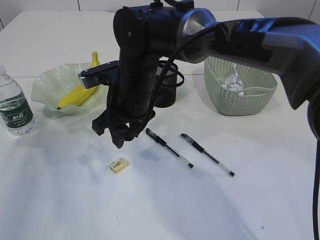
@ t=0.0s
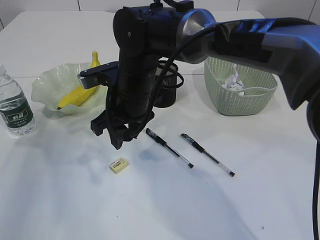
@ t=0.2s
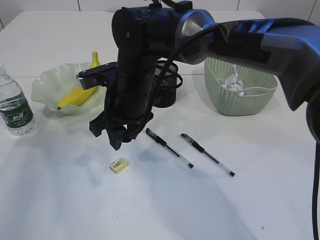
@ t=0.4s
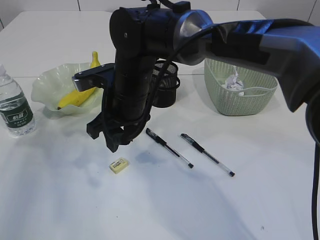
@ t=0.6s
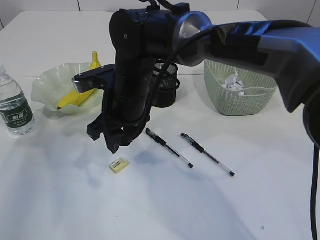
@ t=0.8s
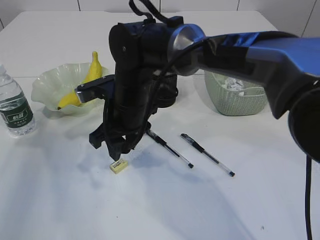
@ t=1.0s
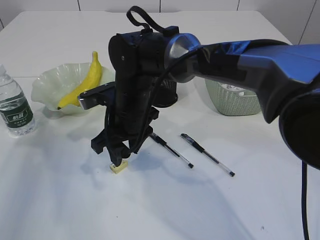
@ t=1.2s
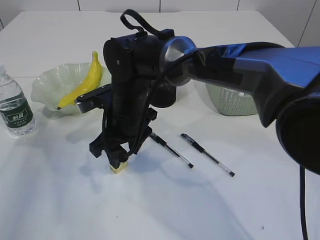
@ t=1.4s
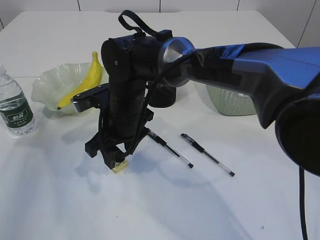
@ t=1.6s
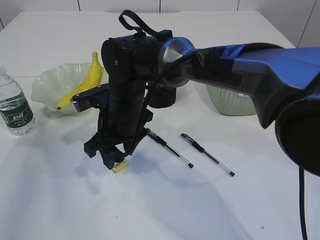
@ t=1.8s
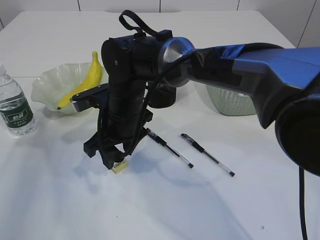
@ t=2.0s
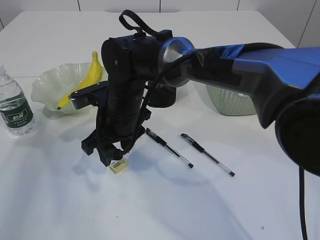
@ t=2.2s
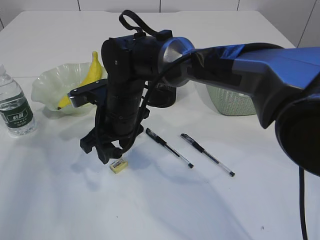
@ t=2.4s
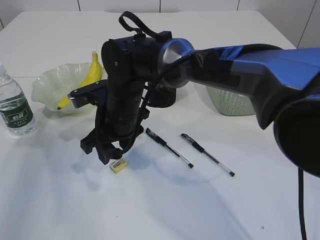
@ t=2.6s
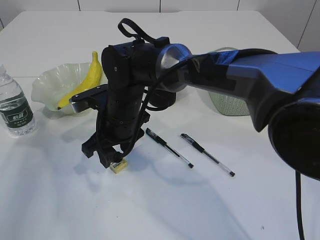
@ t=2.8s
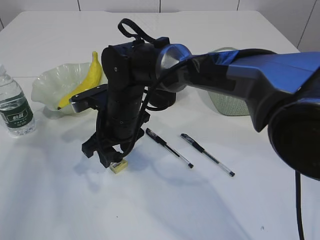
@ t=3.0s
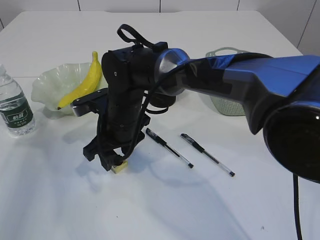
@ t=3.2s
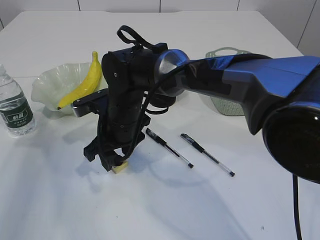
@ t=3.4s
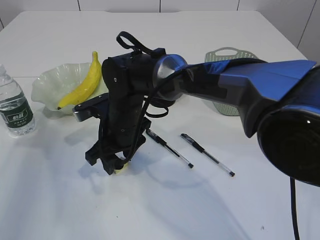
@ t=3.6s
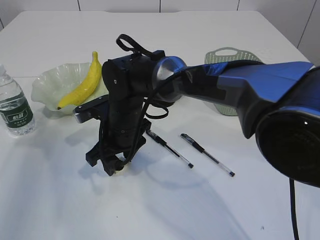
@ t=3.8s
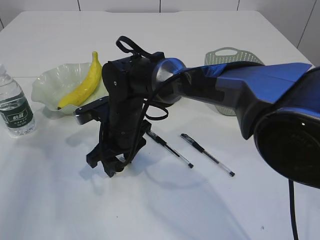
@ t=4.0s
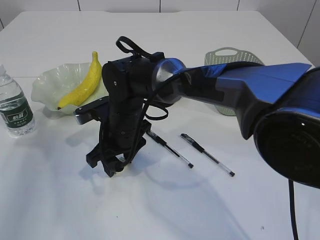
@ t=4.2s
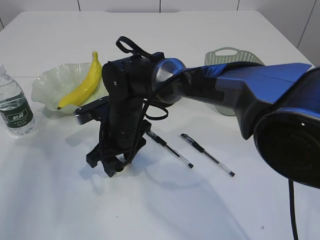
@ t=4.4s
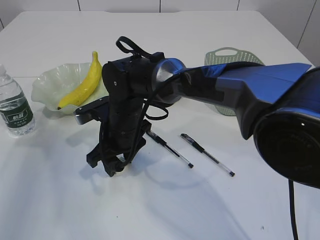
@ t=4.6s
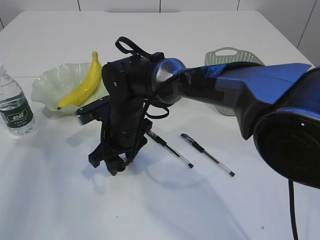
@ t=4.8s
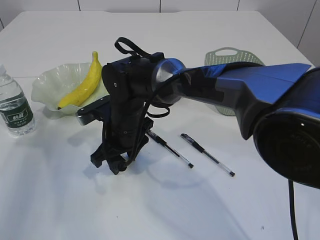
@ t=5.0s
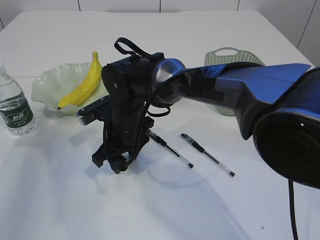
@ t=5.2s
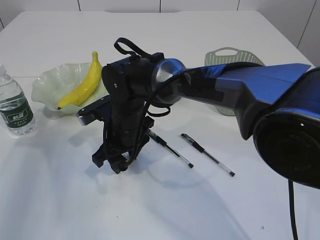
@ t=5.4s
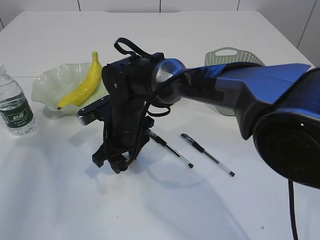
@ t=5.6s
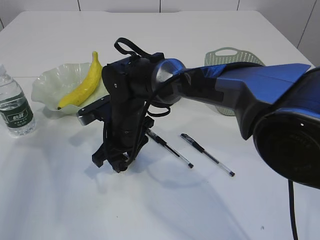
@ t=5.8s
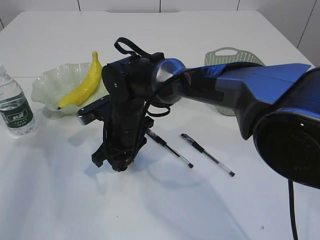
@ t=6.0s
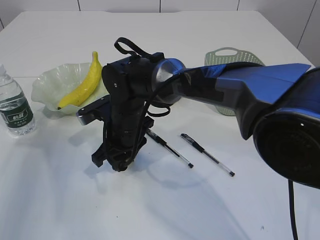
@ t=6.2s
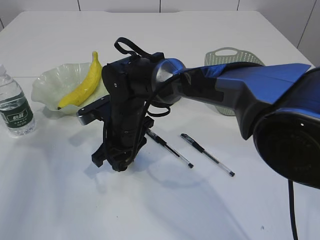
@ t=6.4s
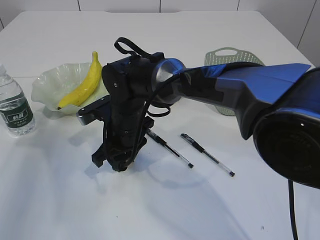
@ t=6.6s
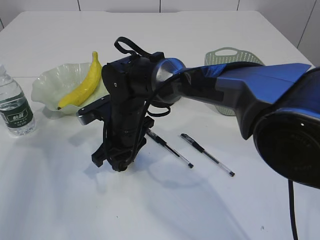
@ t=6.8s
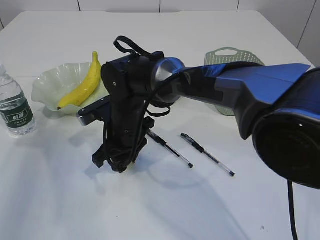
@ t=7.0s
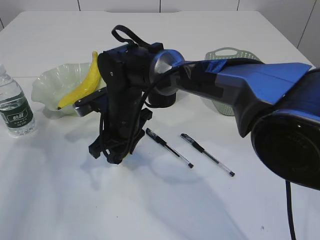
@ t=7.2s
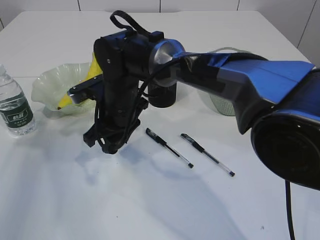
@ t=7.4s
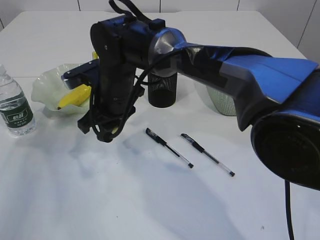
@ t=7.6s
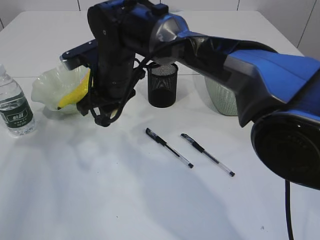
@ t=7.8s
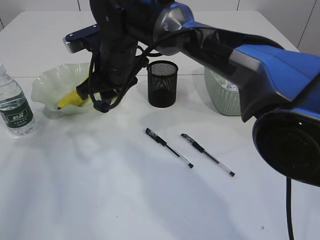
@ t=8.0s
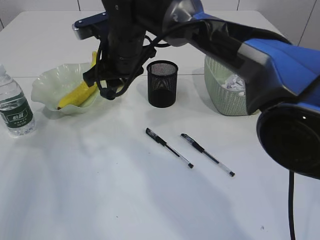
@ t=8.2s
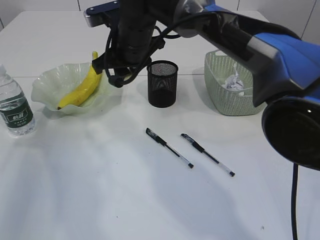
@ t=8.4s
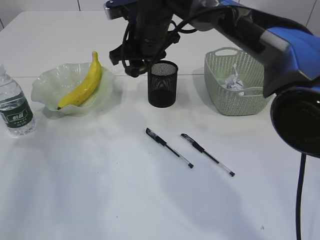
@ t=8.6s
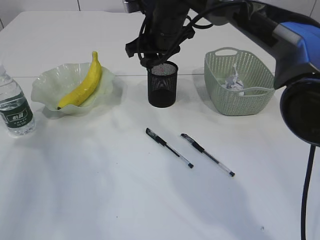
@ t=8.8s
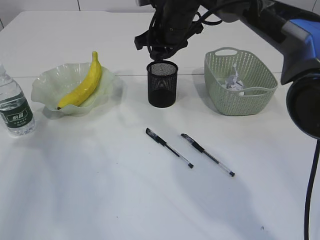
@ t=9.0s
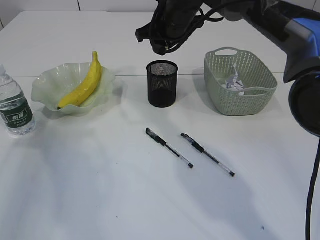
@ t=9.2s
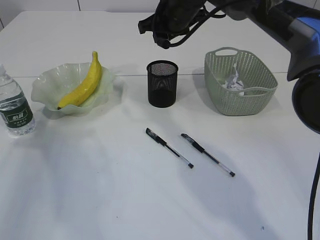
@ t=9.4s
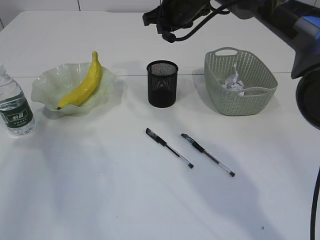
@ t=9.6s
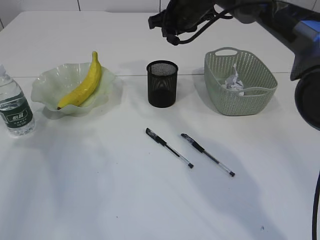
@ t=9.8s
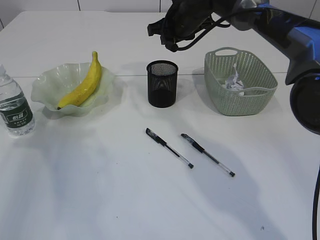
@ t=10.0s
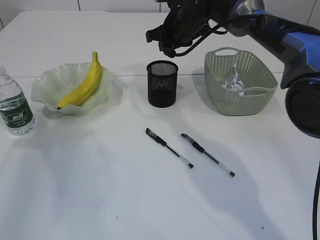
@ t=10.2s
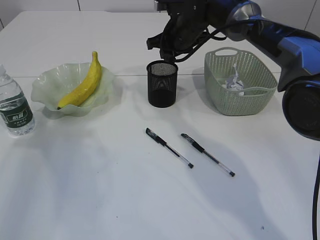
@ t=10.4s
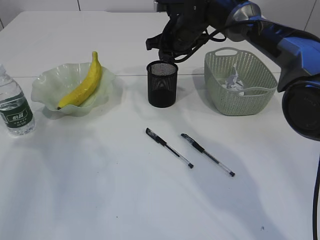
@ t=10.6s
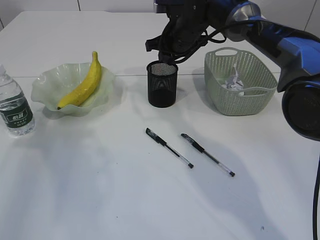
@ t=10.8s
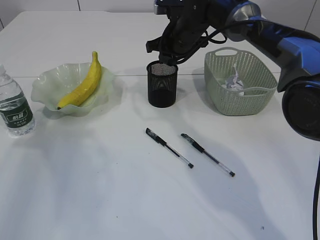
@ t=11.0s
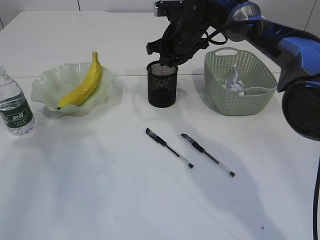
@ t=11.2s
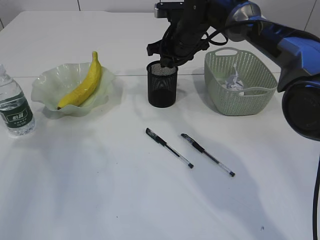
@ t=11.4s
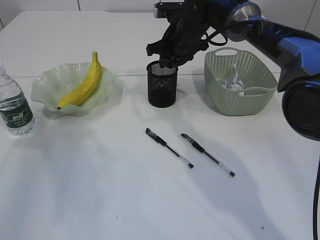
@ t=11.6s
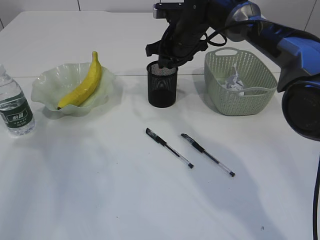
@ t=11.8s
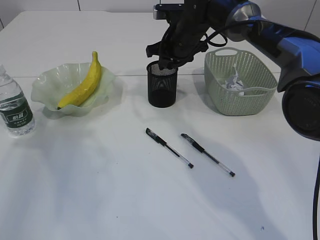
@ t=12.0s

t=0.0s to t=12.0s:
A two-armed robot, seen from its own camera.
Step, t=0.0s to t=7.4s: Pick up the eraser.
t=1.6s to t=3.0s: The two grippers keep their place.
t=3.0s to t=4.4s: The grippers stay close to where they were, moving slightly.
t=4.4s to t=6.0s: The two grippers keep their place.
t=6.0s to t=7.6s: The right gripper is displaced upward by some 5 cm.
t=7.6s to t=9.0s: The right gripper heads to the right, forward and upward, covering approximately 15 cm.
t=9.0s to t=10.4s: The right gripper ends up about 5 cm from where it was.
t=10.4s to t=12.0s: The grippers move only a little.

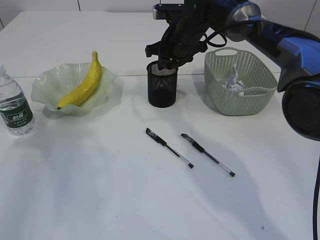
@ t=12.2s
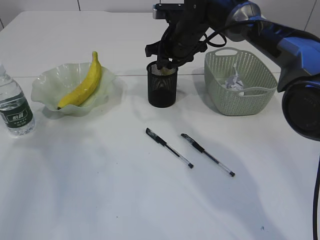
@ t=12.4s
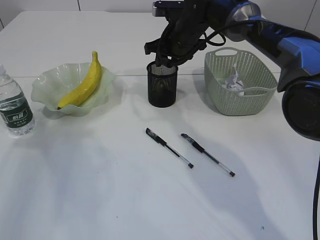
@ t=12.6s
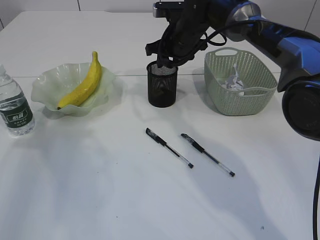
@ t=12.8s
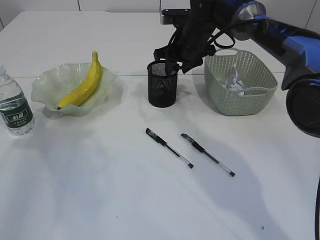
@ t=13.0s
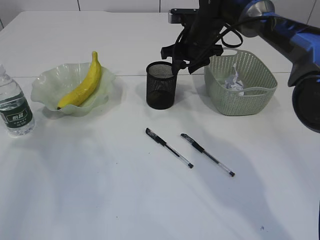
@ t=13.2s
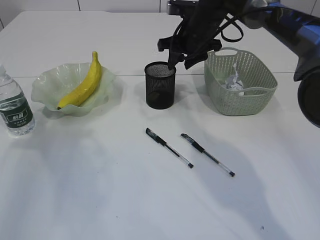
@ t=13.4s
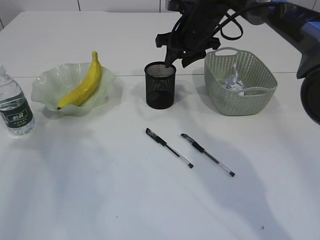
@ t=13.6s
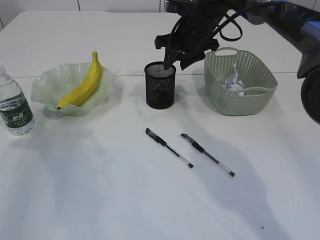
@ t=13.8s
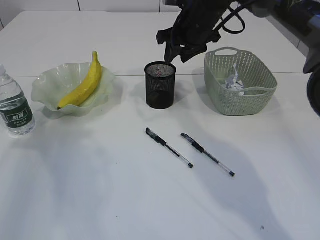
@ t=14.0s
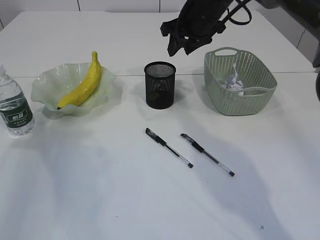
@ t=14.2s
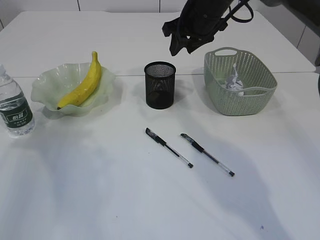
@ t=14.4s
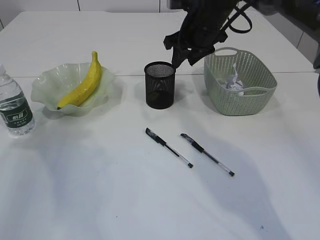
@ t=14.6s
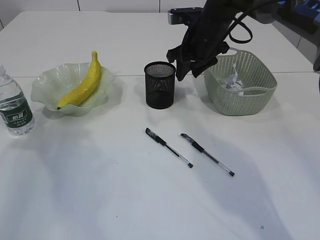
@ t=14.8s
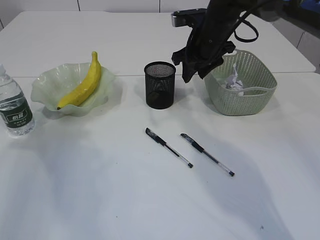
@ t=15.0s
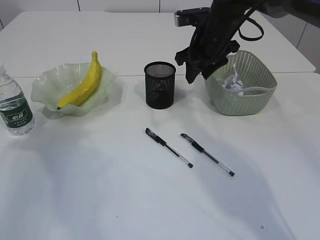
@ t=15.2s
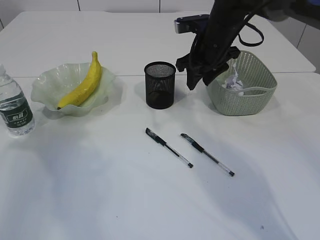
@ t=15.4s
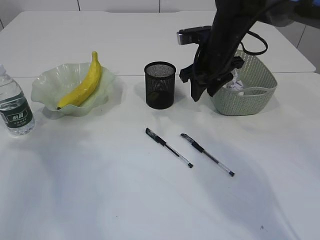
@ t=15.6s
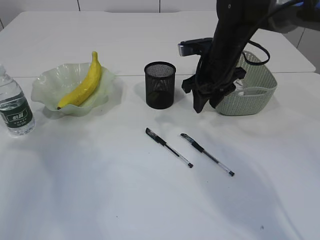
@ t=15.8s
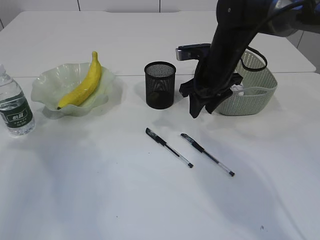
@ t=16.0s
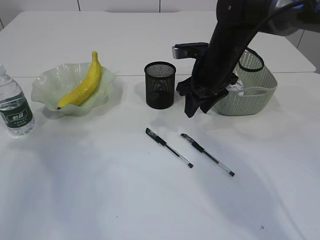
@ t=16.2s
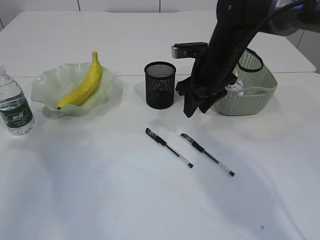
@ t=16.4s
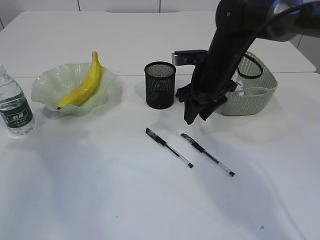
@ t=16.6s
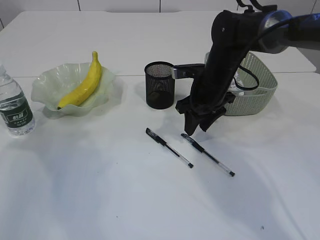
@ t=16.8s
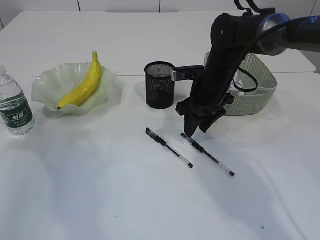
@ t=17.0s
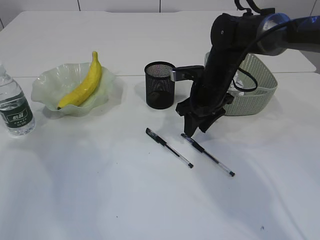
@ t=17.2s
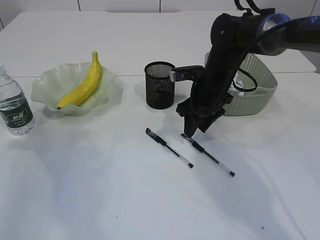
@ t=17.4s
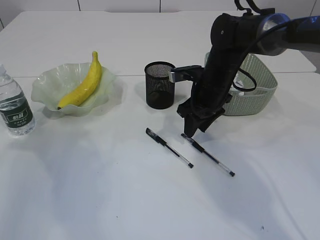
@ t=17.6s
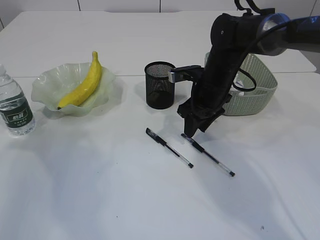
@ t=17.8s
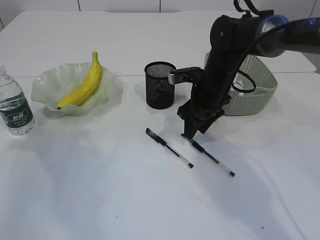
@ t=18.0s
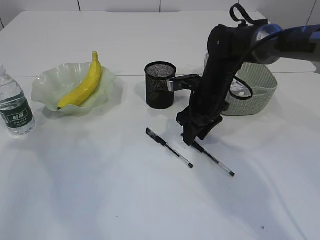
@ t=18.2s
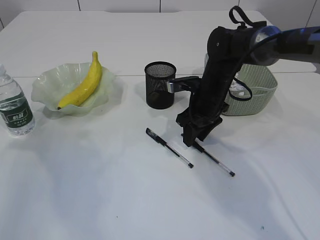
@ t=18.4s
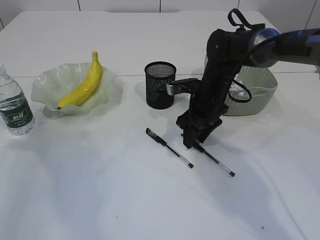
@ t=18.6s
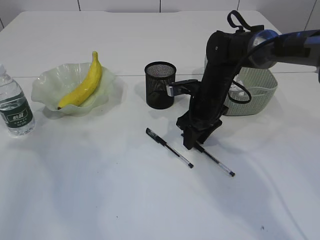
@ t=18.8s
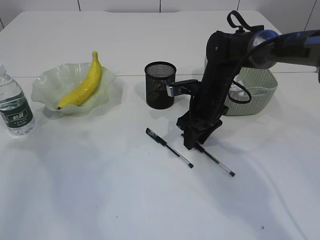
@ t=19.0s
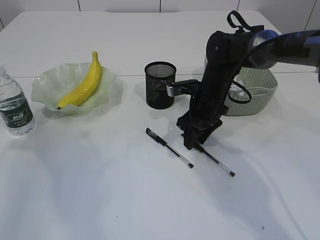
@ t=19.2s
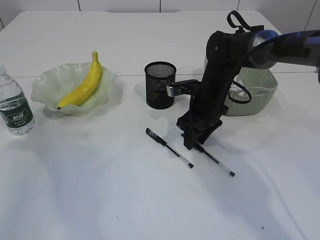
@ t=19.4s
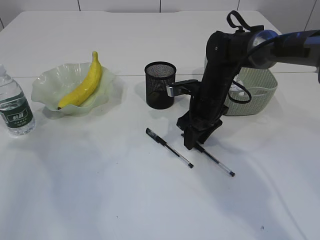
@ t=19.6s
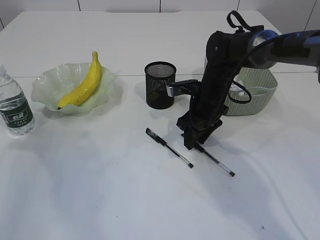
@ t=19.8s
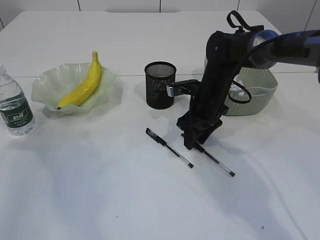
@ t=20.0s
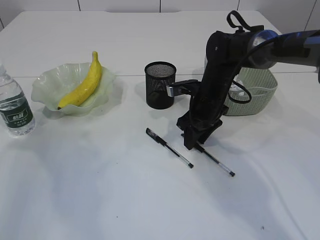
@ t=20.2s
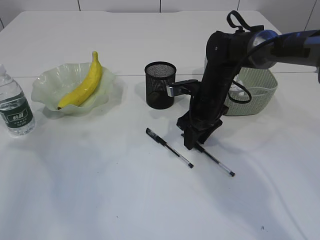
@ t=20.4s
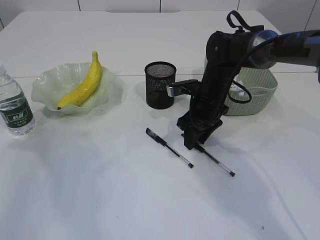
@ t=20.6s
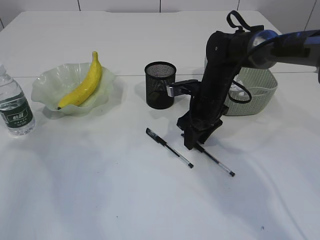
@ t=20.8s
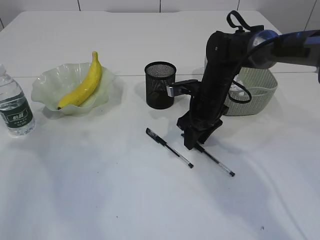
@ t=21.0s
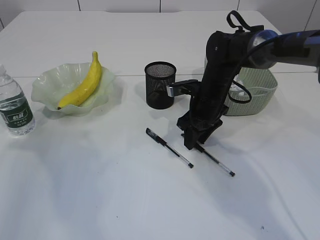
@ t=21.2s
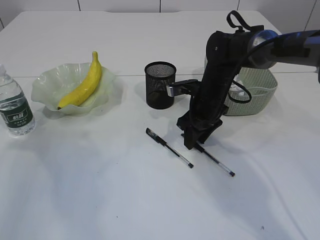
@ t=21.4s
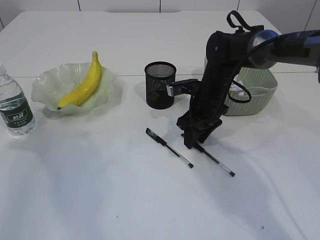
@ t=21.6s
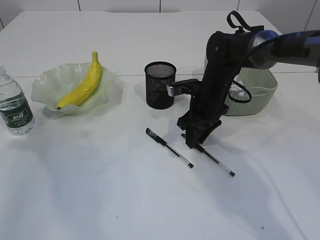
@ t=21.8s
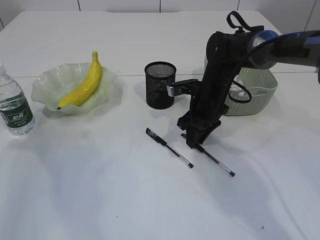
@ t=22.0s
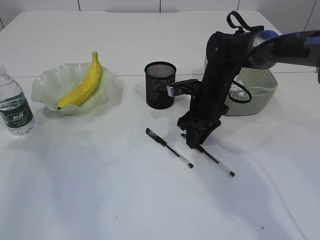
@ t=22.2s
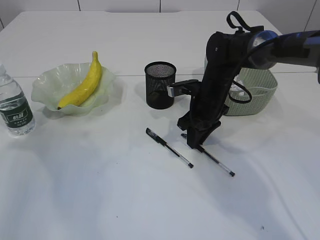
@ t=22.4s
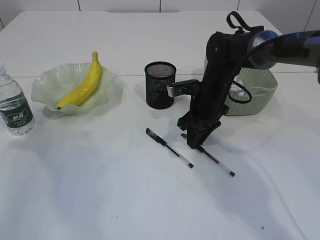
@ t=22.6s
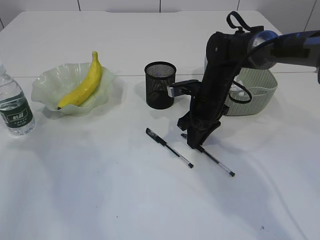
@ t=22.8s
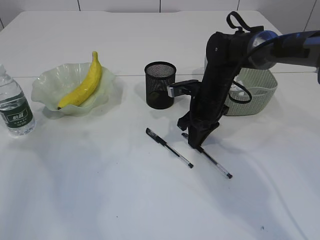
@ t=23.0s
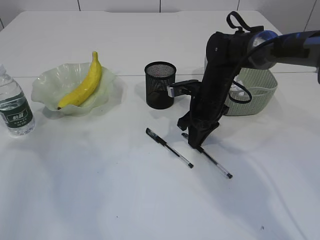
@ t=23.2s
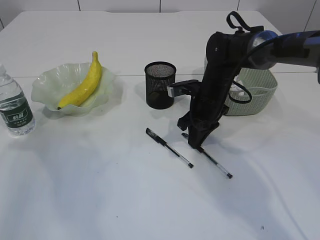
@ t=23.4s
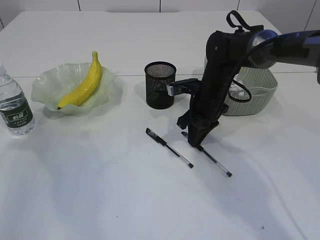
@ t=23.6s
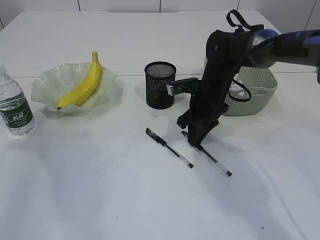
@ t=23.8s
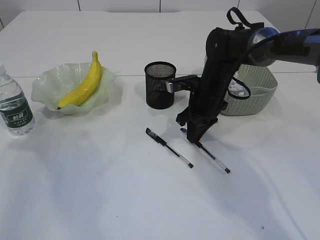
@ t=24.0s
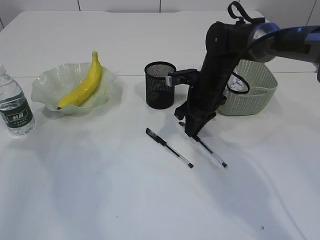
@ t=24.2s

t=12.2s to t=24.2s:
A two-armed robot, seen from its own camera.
t=12.2s to t=13.8s: The grippers stay close to where they were, moving slightly.
t=13.8s to t=15.2s: The grippers move only a little.
t=15.2s to t=16.6s: The right gripper heads downward, covering approximately 5 cm.
t=16.6s to t=18.2s: The right gripper shifts roughly 5 cm downward.
t=18.2s to t=22.6s: Both grippers stay about where they are.
t=22.6s to t=24.2s: There are only small adjustments of the grippers.
